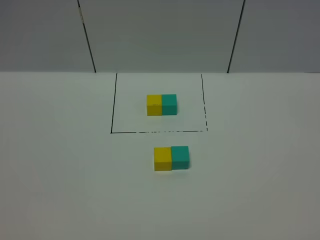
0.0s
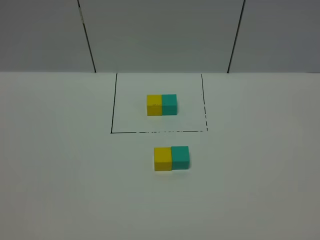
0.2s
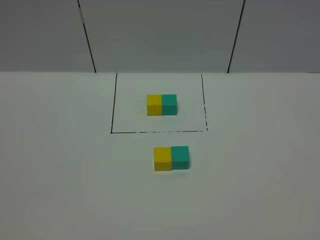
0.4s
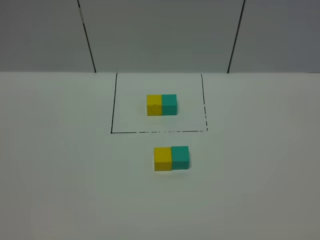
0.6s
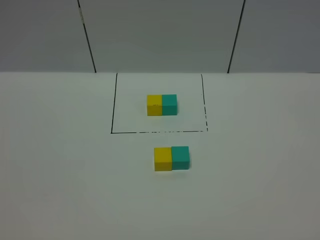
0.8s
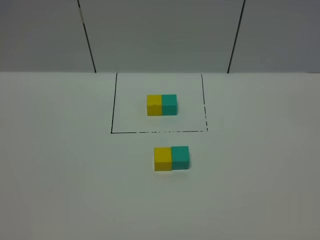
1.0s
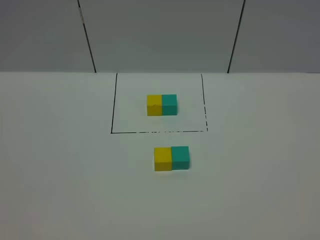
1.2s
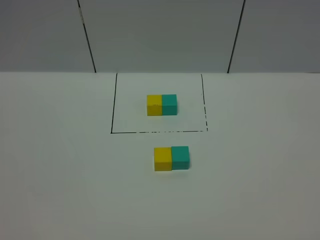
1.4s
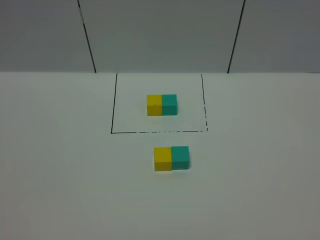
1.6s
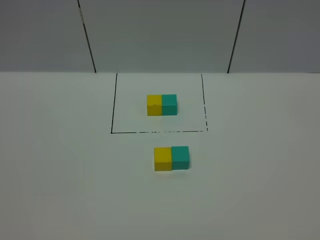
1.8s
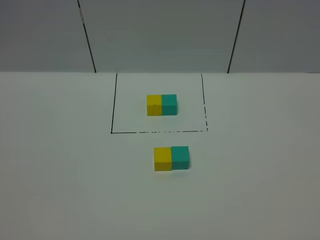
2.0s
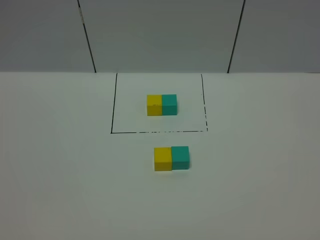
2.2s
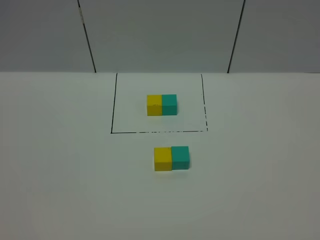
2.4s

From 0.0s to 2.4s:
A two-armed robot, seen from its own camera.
Task of the whole recording: According to the building block template in front, assemble the scattered blocks together.
From 0.0s to 2.4s: The two grippers keep their place.

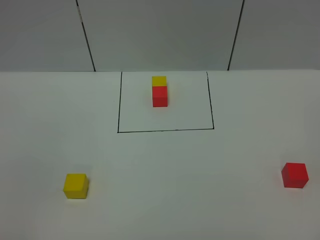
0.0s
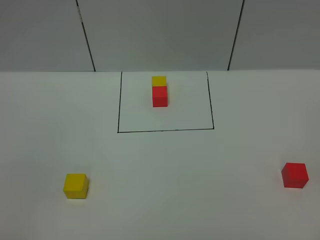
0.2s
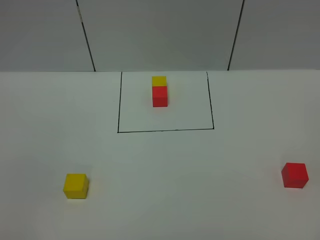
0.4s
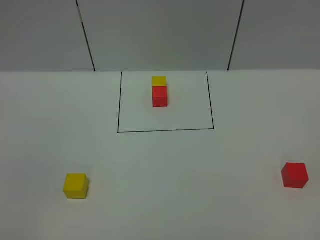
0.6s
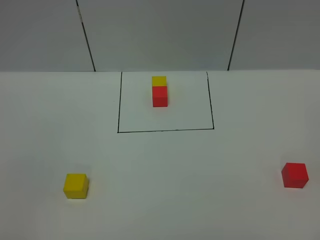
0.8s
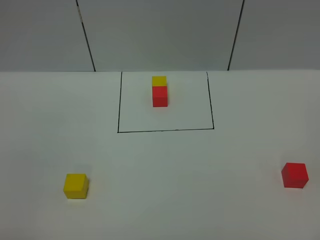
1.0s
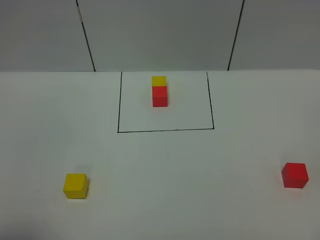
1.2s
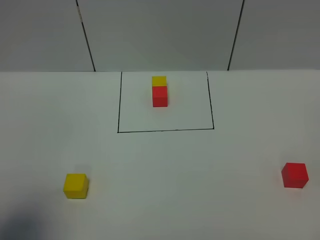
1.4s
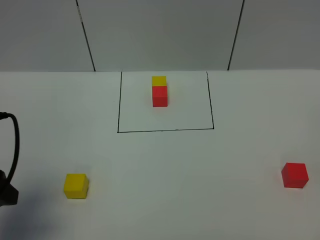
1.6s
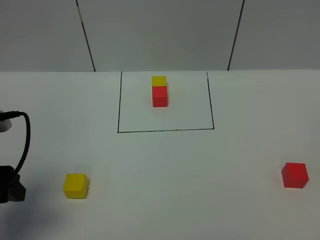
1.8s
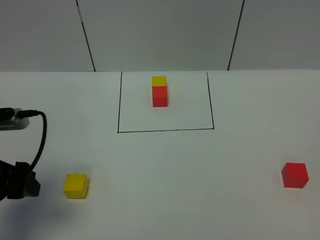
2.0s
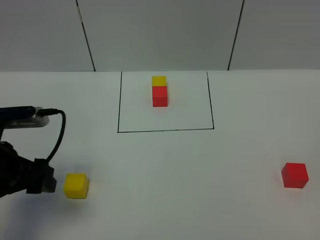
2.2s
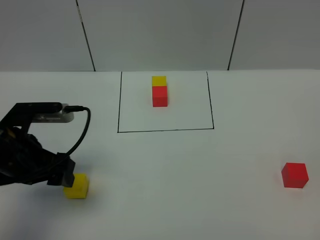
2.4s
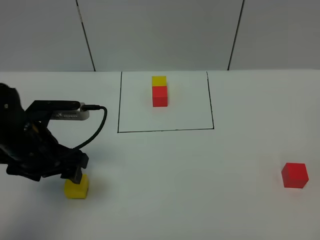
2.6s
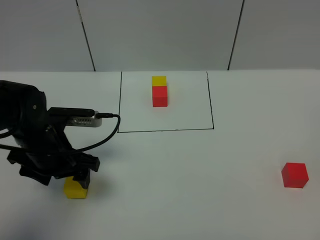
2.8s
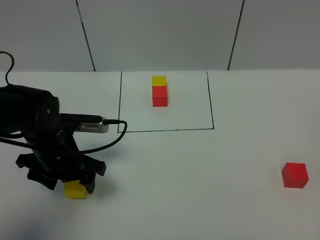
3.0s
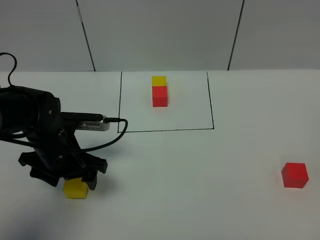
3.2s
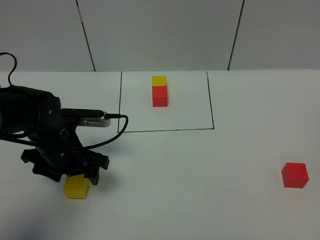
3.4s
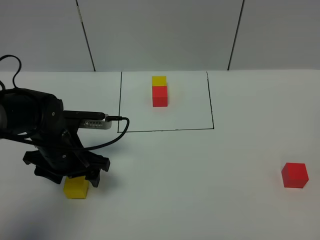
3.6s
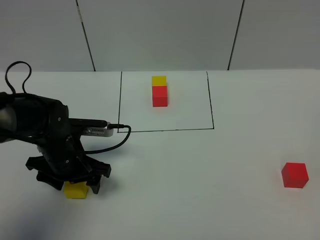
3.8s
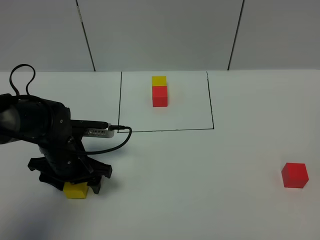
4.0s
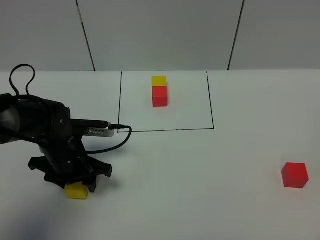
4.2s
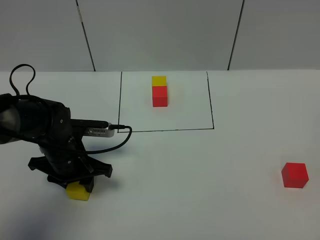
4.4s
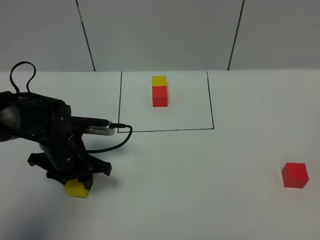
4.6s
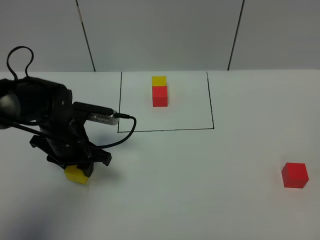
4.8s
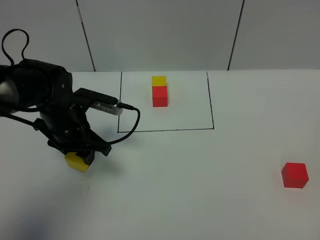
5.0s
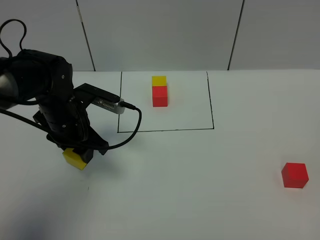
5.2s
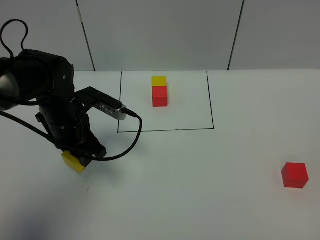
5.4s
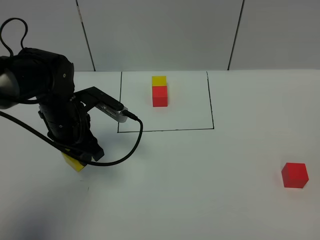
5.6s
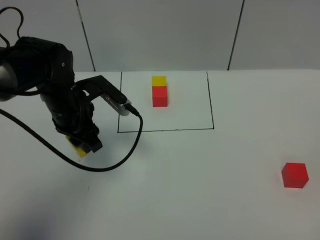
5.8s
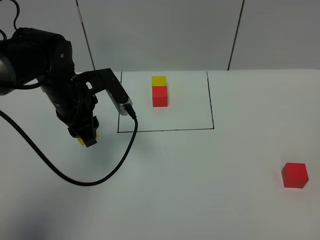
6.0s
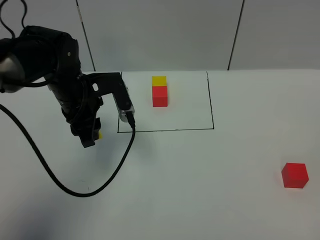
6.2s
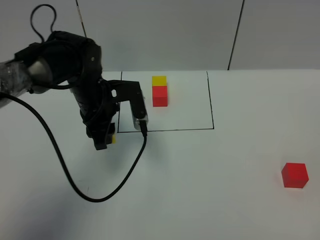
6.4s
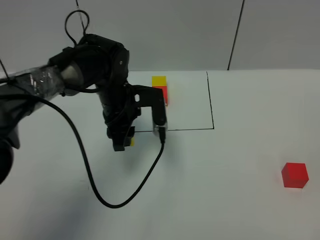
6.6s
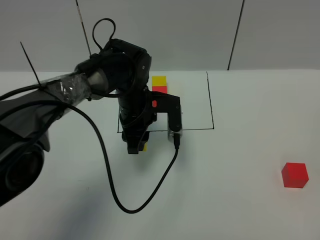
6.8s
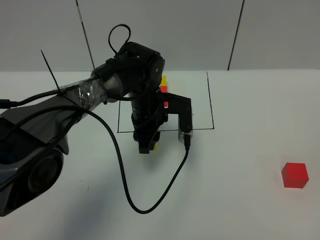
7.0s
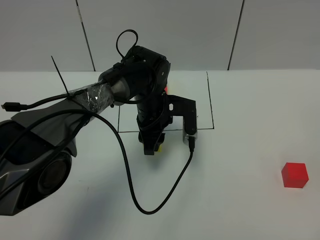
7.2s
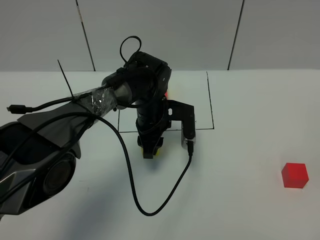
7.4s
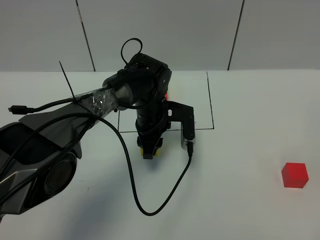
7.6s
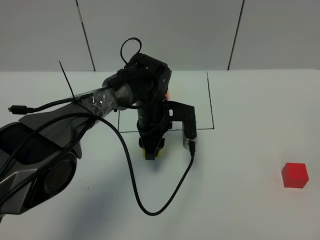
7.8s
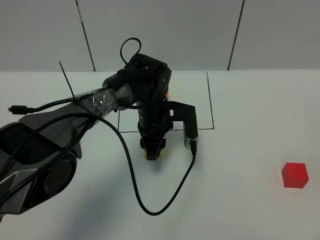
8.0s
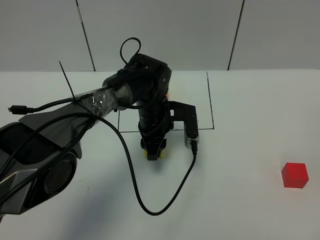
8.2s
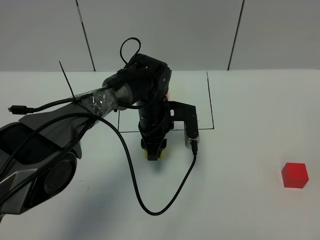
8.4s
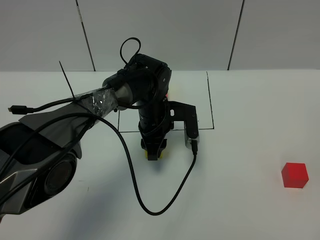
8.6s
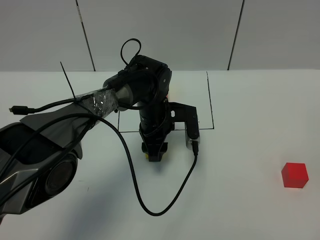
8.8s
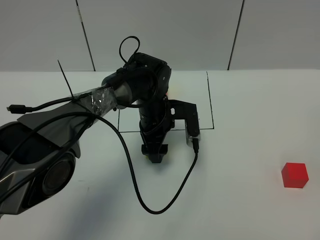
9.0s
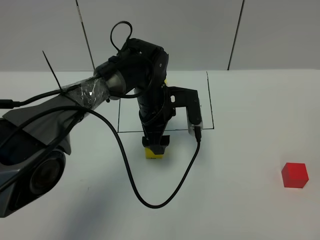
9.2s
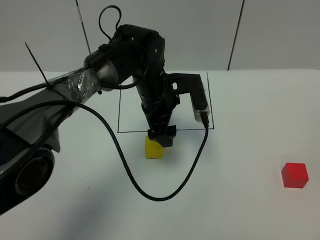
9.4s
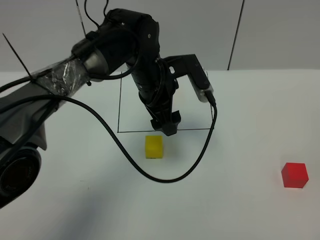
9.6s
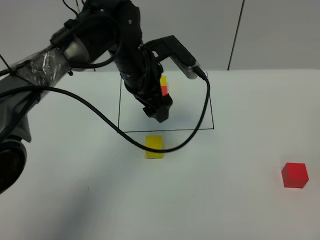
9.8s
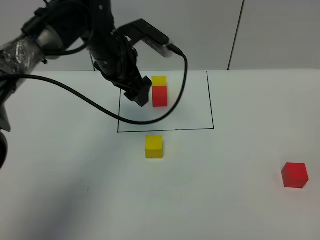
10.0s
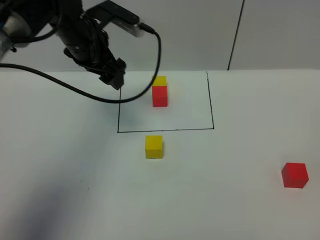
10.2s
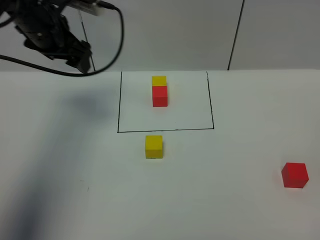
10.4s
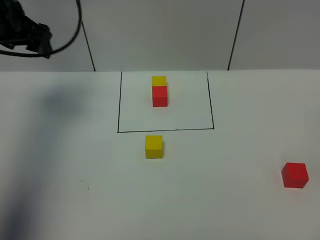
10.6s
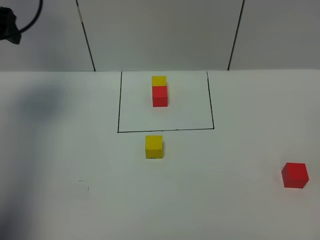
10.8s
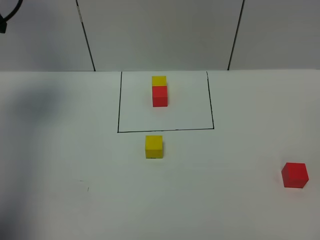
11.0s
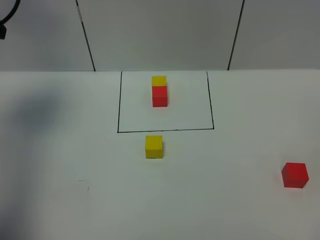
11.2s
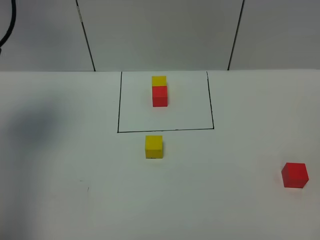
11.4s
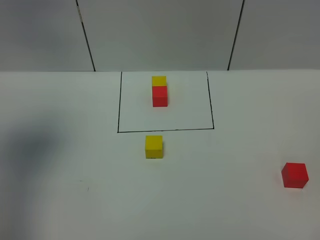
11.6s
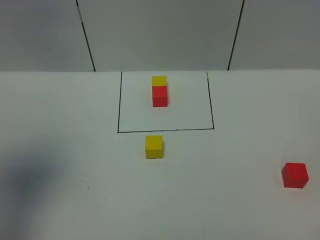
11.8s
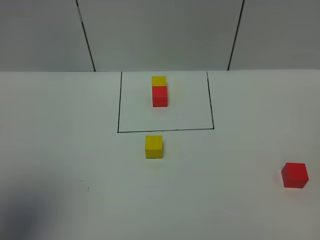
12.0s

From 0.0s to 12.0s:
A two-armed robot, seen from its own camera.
Task of the whole recording: According to the building block template in front, assemble the scattered blocks together.
Step, from 1.4s to 8.8s: Put the yellow cube in the center of the table.
From 0.0s to 1.6s: The left gripper is displaced forward by roughly 20 cm.
From 1.6s to 3.0s: The left gripper goes roughly 20 cm forward, downward and to the right.
From 3.0s to 4.4s: The left gripper closes.
From 4.4s to 6.0s: The left gripper is displaced upward and forward by approximately 10 cm.
From 6.0s to 7.6s: The left gripper goes roughly 15 cm to the right and downward.
From 7.6s to 9.0s: The left gripper opens its fingers.
From 9.0s to 10.4s: The left gripper heads to the left and upward, covering approximately 25 cm.
From 10.4s to 12.0s: The left gripper heads backward, covering some 35 cm.

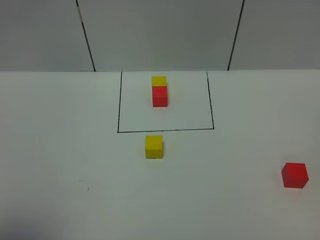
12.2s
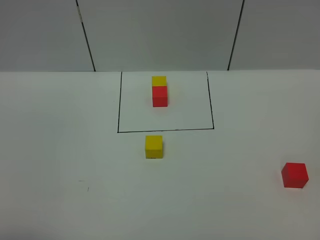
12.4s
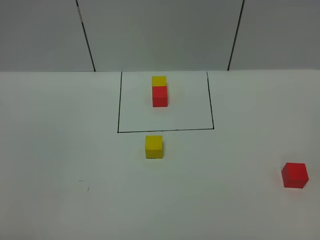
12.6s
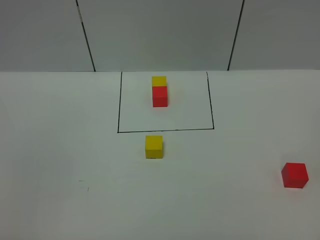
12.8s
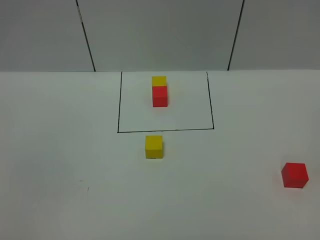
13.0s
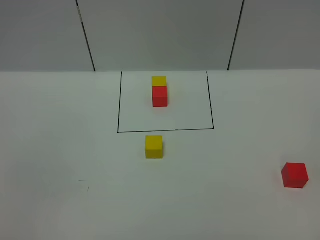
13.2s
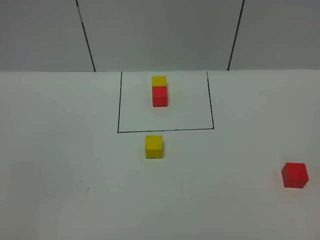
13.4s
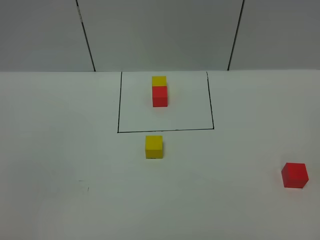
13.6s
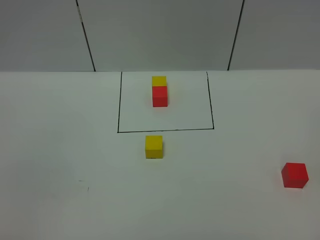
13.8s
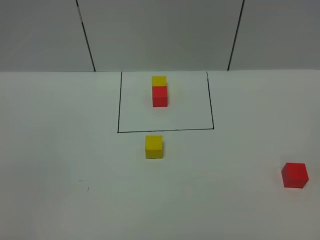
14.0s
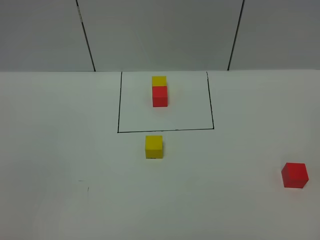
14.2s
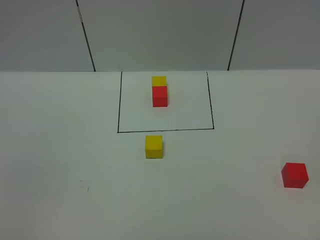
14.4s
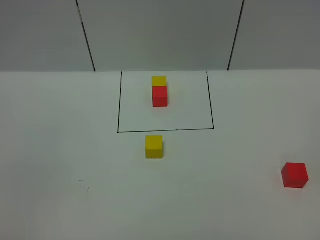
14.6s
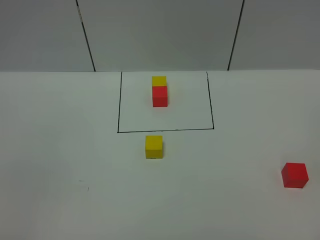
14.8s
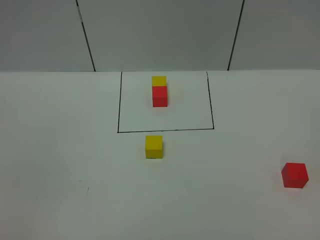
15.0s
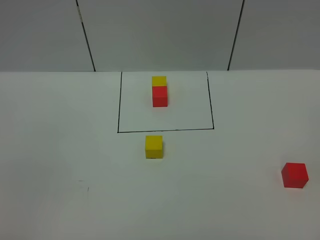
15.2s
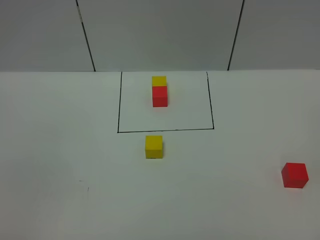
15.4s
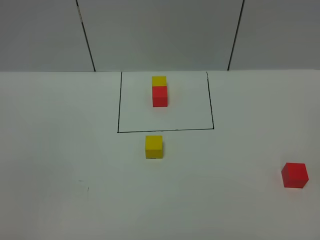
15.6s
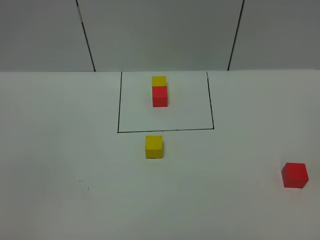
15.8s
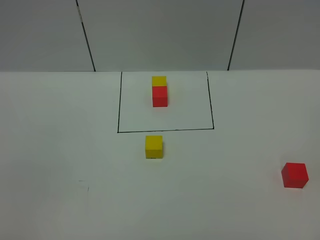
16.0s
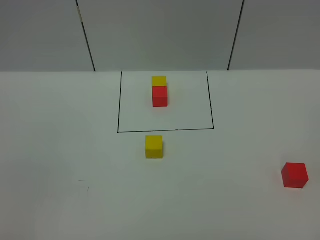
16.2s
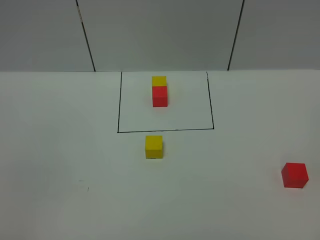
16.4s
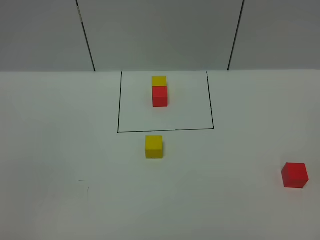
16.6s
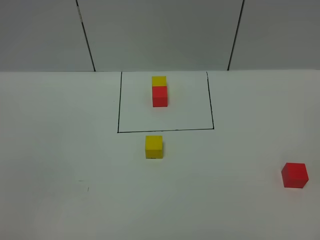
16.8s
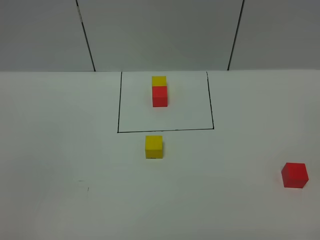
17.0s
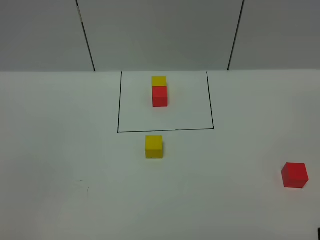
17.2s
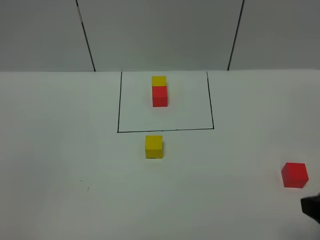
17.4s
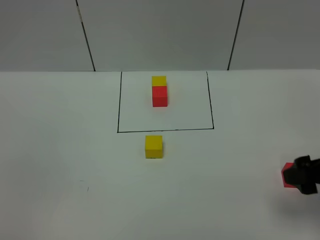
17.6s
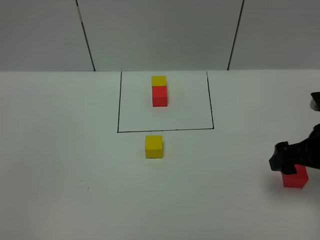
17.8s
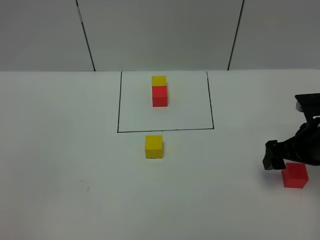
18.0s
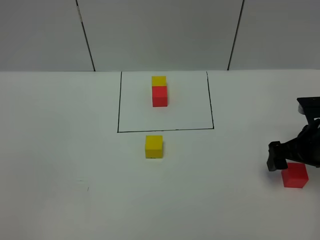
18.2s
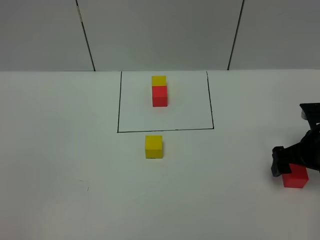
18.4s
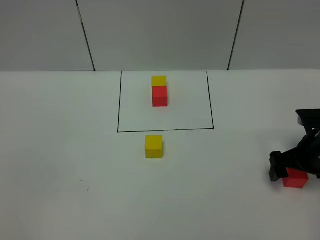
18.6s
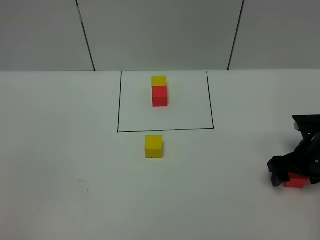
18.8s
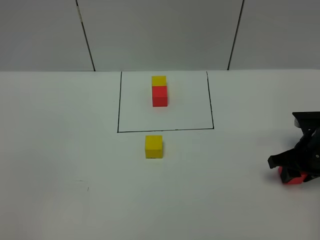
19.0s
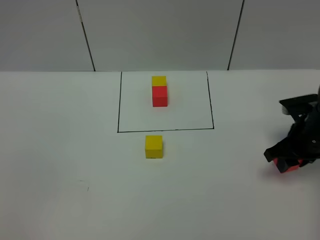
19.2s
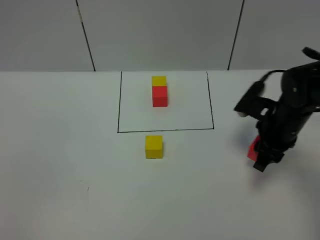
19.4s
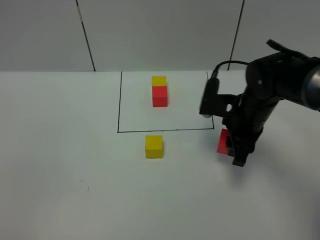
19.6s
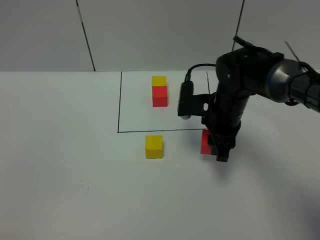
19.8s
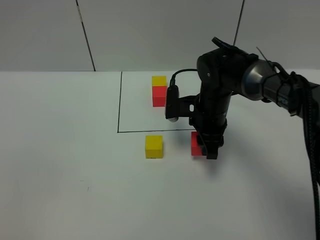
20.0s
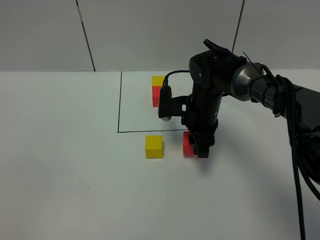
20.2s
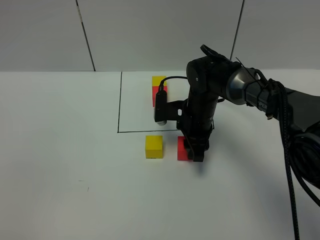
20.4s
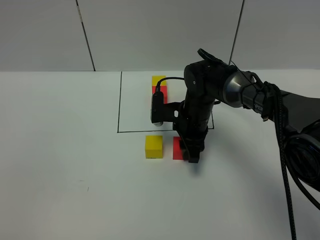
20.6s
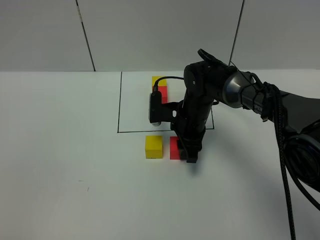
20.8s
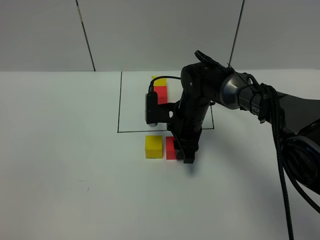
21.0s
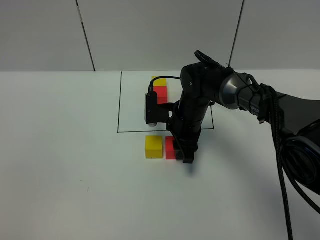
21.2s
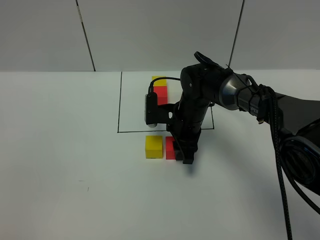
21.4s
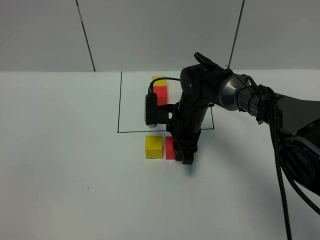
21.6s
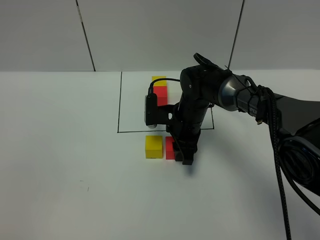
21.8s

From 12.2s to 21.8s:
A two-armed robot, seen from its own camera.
Task of the whole recording: According to the building block template in front, assemble the scattered blocks together.
From 12.2s to 13.8s: The left gripper is displaced downward and backward by about 15 cm.
From 13.8s to 15.4s: Both grippers stay about where they are.
From 17.0s to 18.6s: The right gripper travels forward and downward by about 35 cm.
From 18.6s to 20.2s: The right gripper shifts about 25 cm to the left and forward, and closes its fingers.
From 20.2s to 21.8s: The grippers make only small movements.
